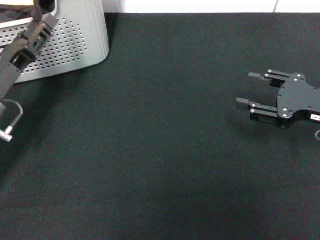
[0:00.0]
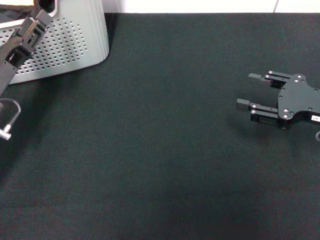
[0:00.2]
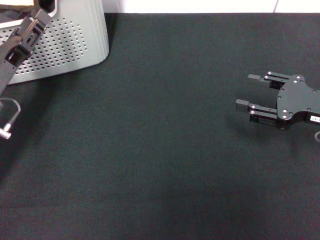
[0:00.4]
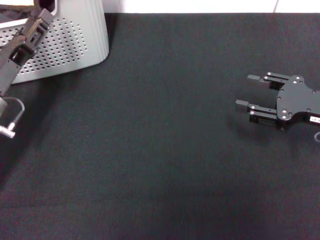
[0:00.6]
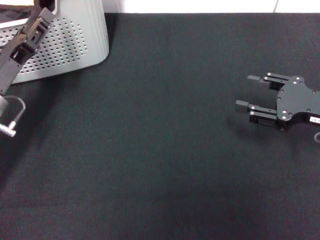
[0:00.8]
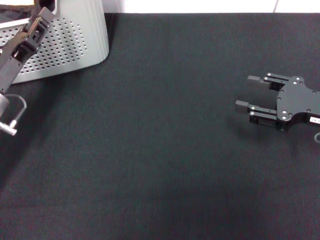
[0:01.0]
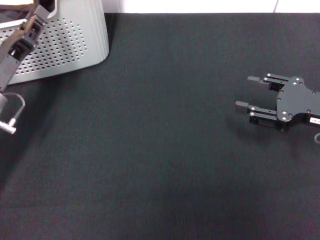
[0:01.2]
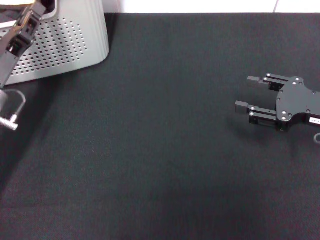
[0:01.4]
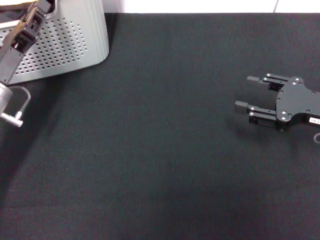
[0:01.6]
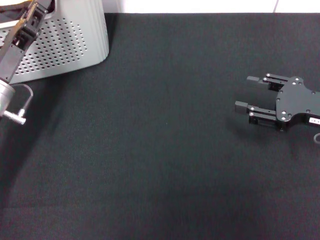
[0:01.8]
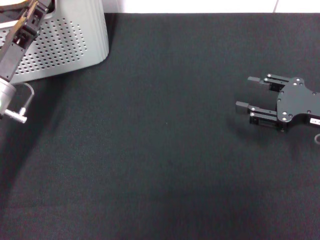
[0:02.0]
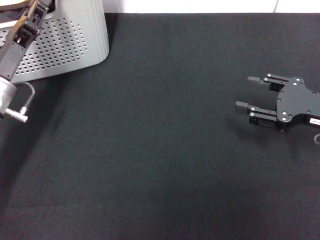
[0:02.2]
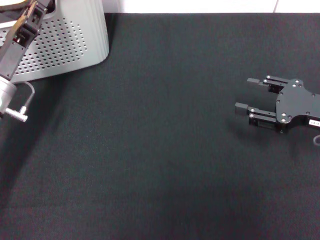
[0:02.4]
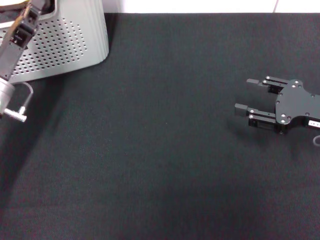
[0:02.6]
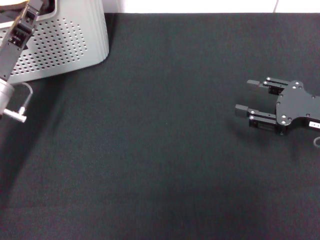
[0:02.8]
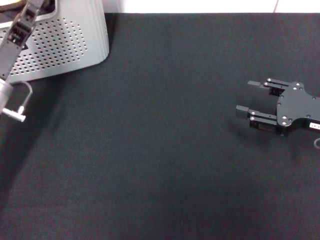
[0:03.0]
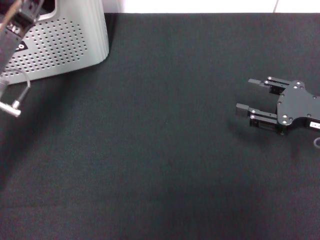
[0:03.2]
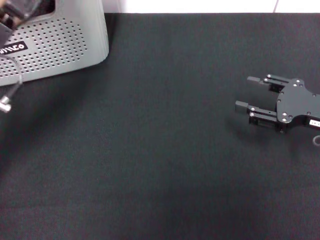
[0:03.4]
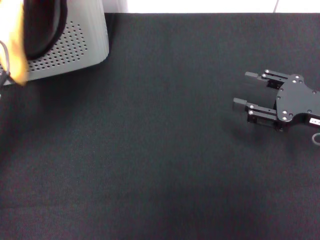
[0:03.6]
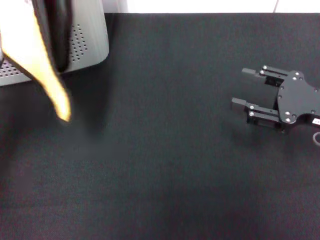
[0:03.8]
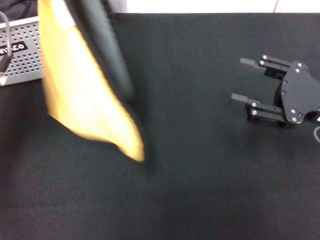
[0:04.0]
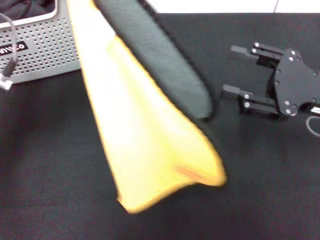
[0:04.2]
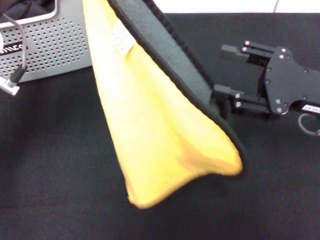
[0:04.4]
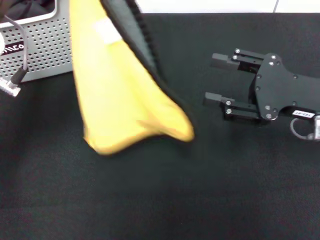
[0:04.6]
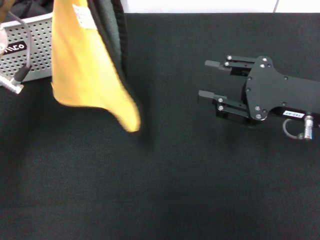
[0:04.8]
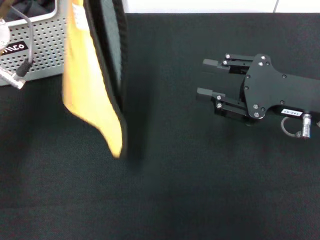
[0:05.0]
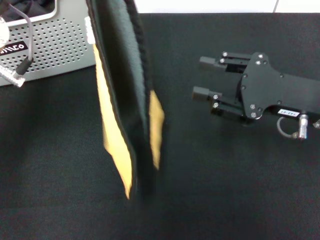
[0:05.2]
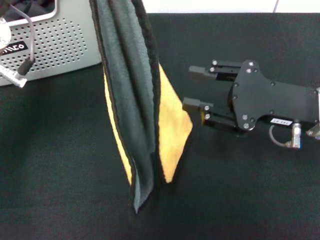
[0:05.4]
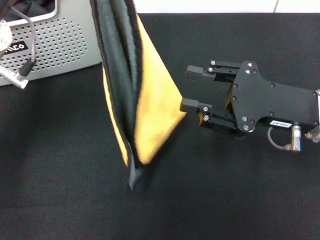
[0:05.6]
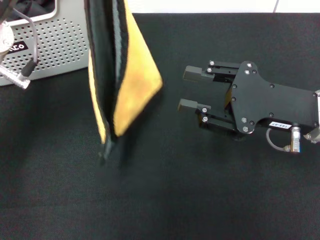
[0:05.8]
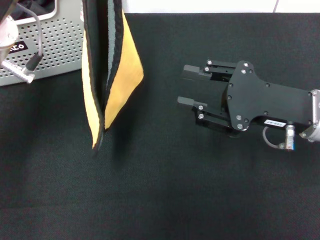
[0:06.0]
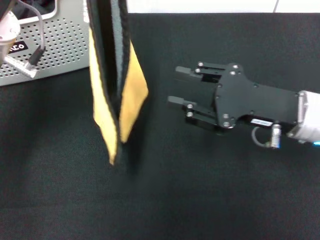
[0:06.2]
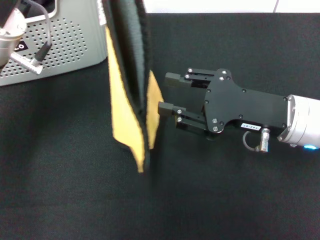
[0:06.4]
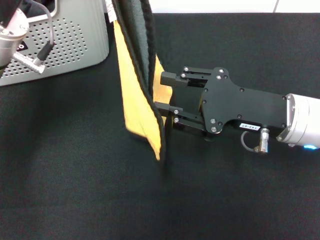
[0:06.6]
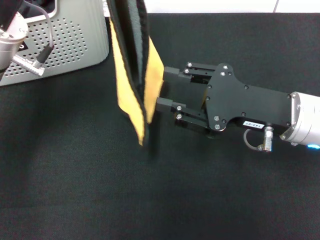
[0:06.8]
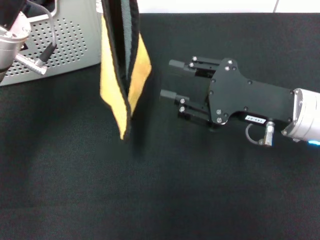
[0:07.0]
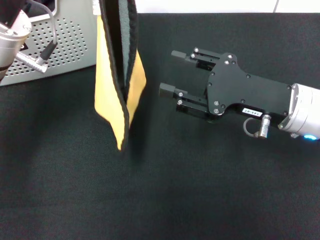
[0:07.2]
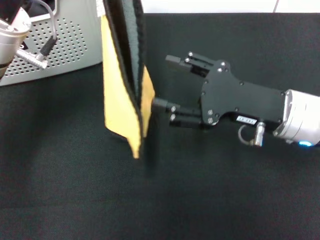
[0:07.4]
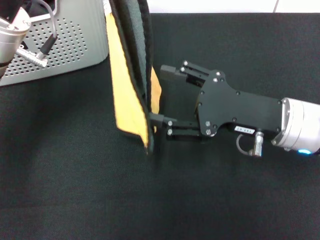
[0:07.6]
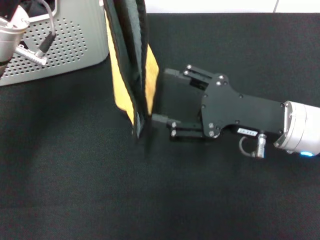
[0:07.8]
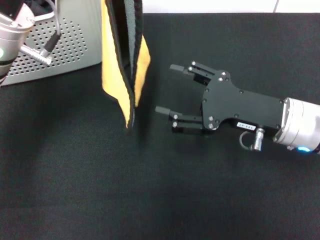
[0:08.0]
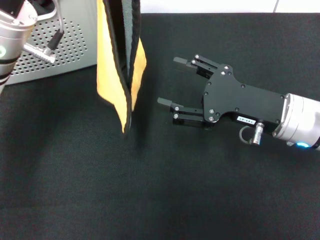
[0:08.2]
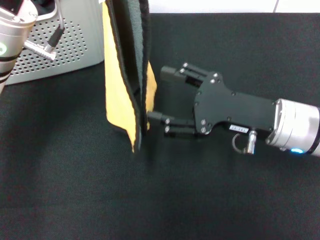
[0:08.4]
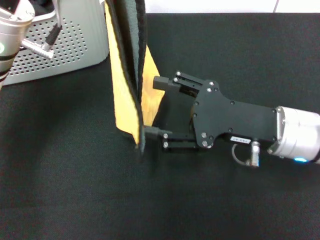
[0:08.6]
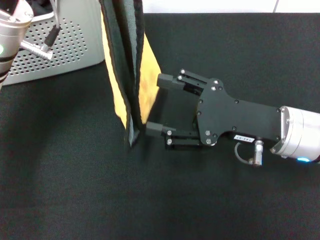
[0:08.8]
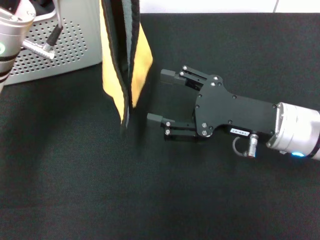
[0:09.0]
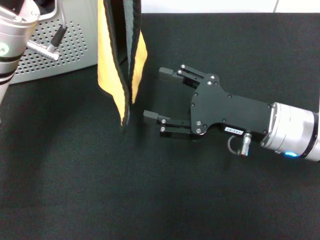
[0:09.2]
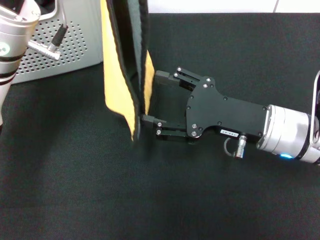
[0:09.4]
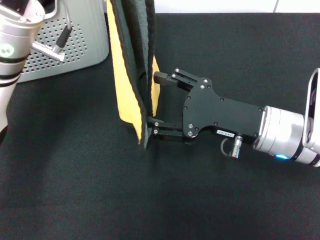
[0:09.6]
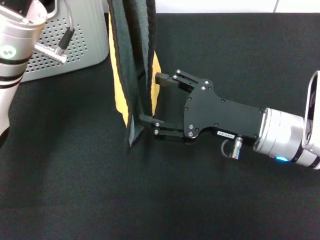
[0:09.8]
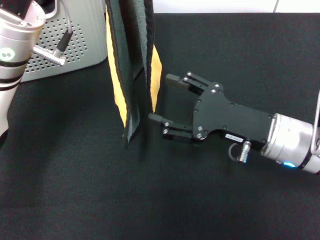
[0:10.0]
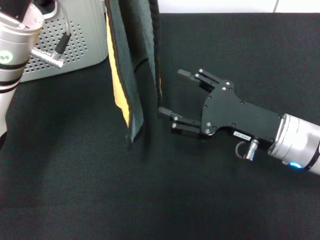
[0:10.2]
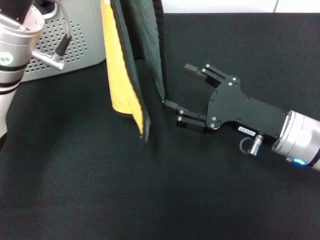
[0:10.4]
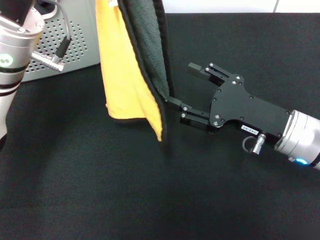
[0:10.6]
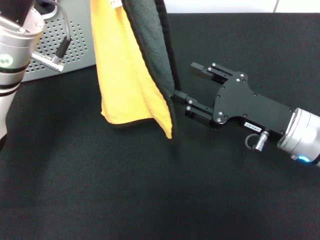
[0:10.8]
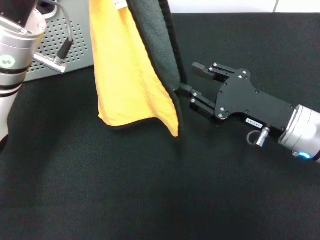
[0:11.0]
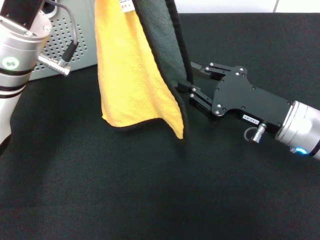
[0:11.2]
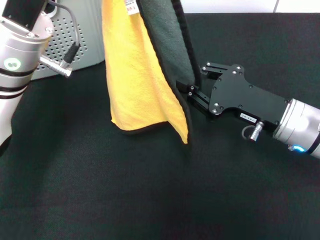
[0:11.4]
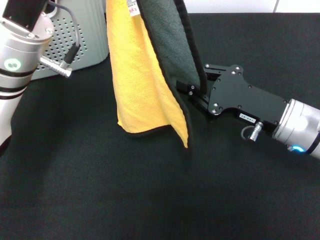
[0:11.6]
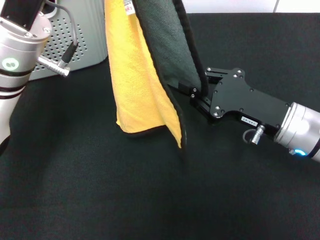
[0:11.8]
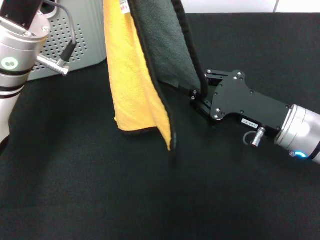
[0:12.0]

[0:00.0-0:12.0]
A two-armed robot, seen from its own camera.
Task of the whole recording: pick up the towel from the storage box and lay it flat on the black tablecloth.
Step, 0:00.0 to 0:02.6: Pick up a towel with the left gripper.
0:00.0 to 0:01.6: The left gripper closes up.
0:01.6 to 0:03.0: The left gripper closes up.
0:03.0 to 0:04.4: The left gripper goes roughly 10 cm upward, while the right gripper changes place by about 5 cm.
0:07.6 to 0:10.4: The grippers move only a little.
0:10.4 to 0:12.0: The right gripper closes.

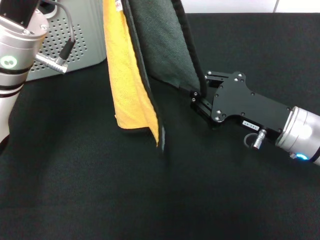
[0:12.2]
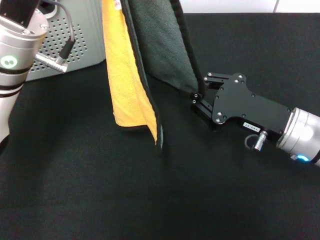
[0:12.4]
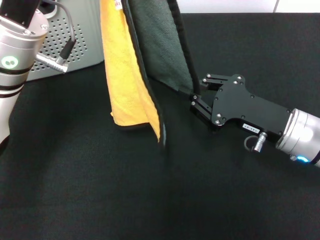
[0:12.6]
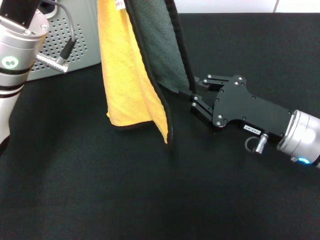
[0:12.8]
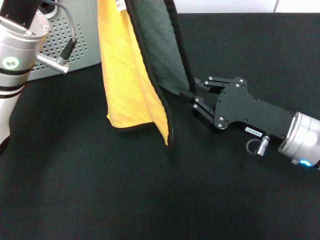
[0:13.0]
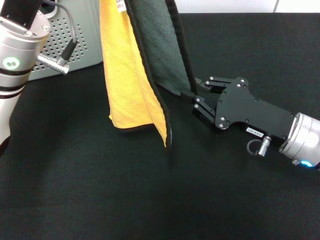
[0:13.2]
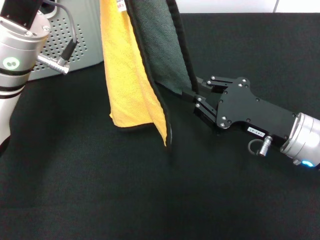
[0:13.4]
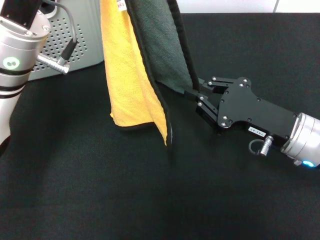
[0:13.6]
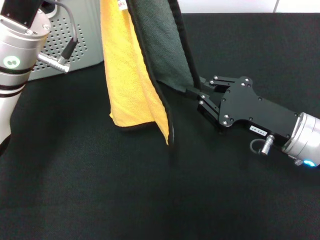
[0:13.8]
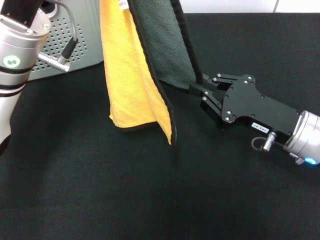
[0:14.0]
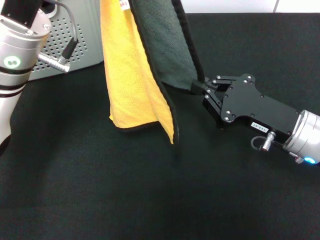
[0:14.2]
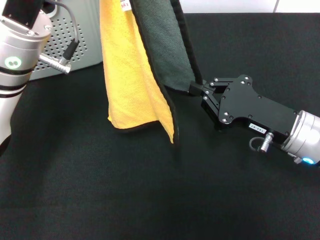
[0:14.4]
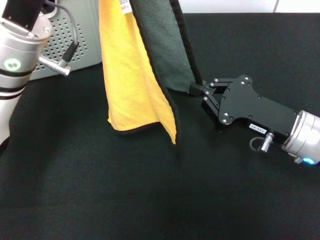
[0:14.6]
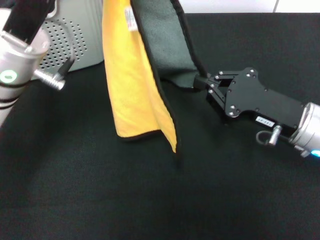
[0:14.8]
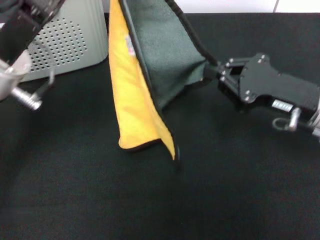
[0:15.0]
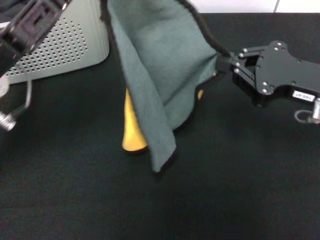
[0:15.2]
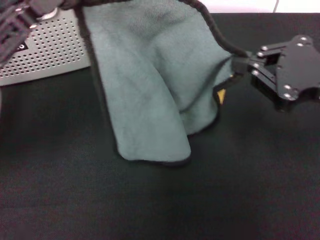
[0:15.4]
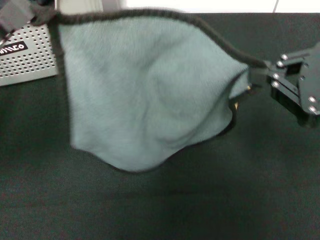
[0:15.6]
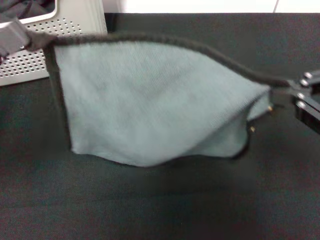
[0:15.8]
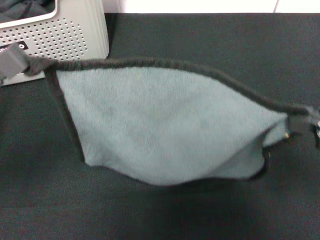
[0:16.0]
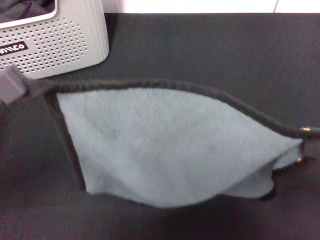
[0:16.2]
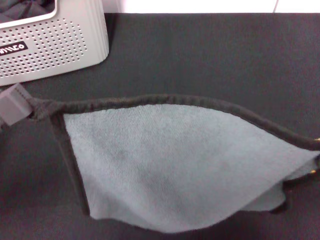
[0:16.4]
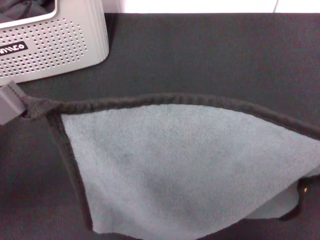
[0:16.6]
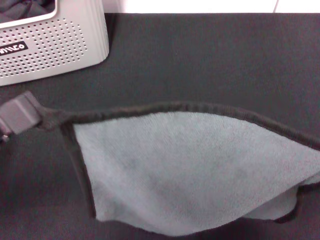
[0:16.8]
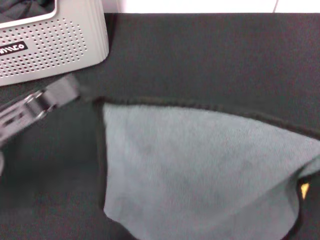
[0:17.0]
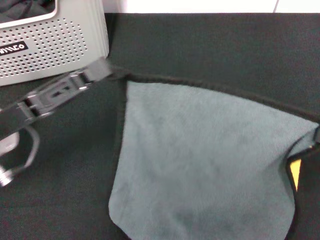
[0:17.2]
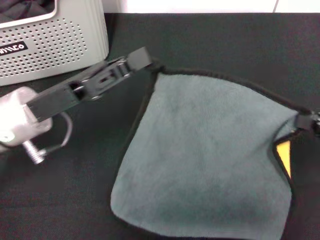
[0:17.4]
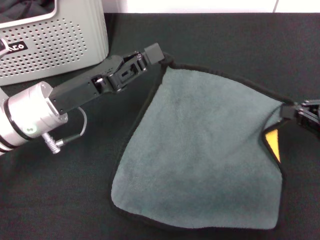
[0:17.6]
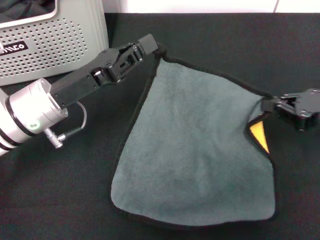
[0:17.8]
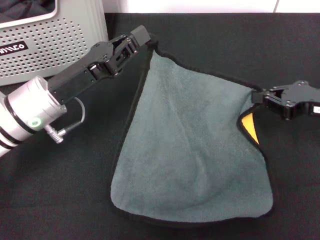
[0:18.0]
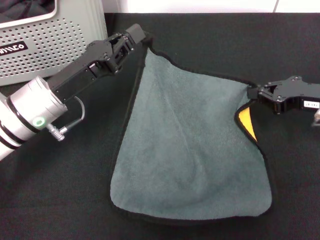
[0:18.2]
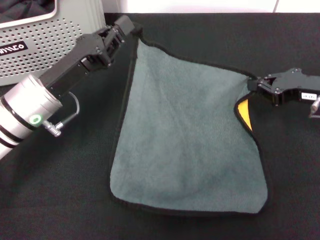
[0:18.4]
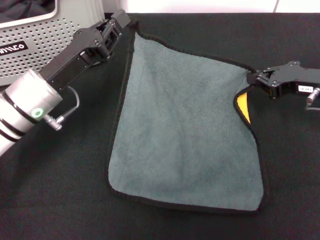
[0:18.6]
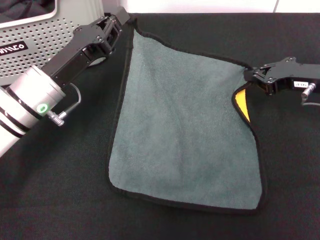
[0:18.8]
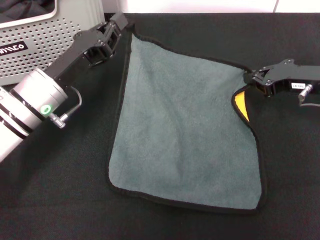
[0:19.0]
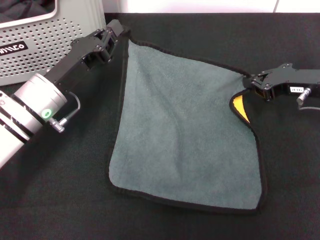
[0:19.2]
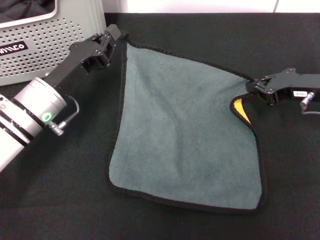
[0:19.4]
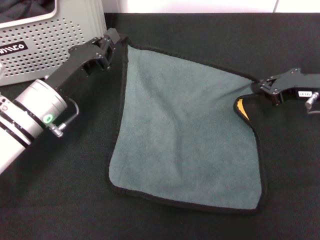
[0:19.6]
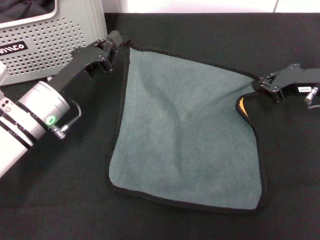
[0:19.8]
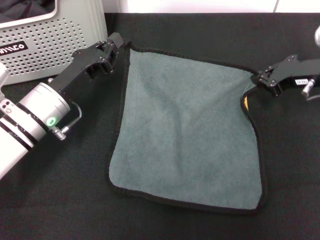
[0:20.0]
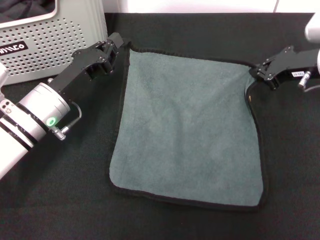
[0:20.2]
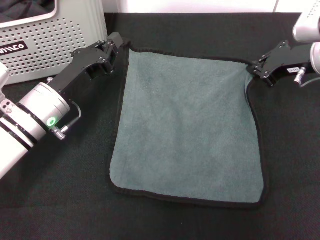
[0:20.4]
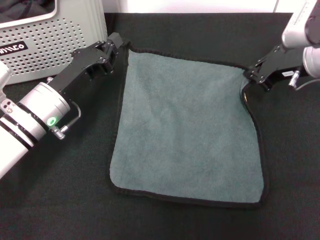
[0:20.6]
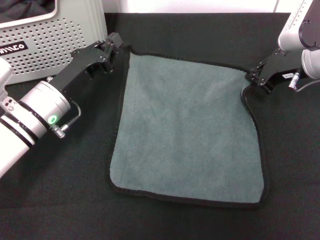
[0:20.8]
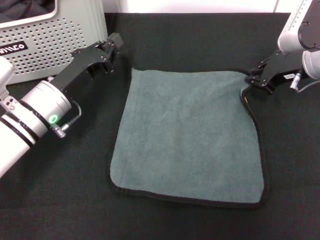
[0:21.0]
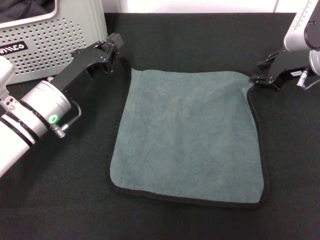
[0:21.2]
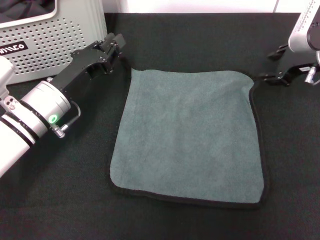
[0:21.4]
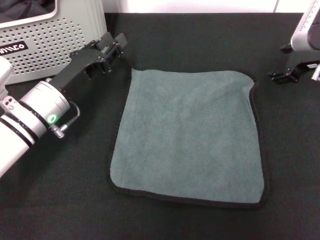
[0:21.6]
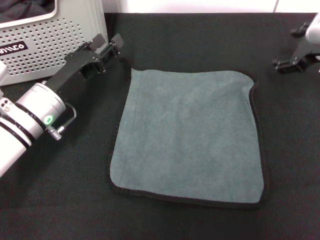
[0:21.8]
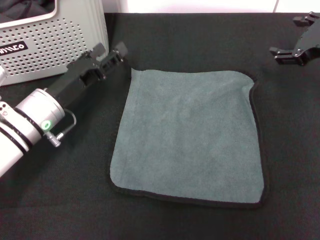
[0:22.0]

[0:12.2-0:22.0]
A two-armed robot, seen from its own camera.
Task of the whole recording: pick up the towel from the storage box and lay it flat on the black tablecloth.
Step, 0:12.2 to 0:14.6: Spread the towel flat with the left gripper.
Step, 0:14.8 to 0:21.0: Spread the towel flat with the right gripper.
0:12.2 to 0:13.6: Both grippers stay about where they are.
0:13.6 to 0:15.0: The right gripper ends up roughly 5 cm from where it was.
0:15.0 to 0:16.4: The right gripper shifts some 20 cm backward, upward and to the right. The left gripper is displaced backward and to the left by some 15 cm.
0:16.4 to 0:17.8: The right gripper is displaced forward and downward by some 20 cm, while the left gripper is displaced forward, to the right and downward by some 15 cm.
0:17.8 to 0:19.2: The right gripper heads forward, covering about 5 cm.
0:19.2 to 0:20.6: The right gripper moves some 5 cm.
0:20.6 to 0:22.0: The left gripper opens up, while the right gripper shifts by approximately 5 cm, and opens its fingers.
